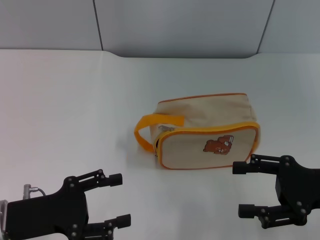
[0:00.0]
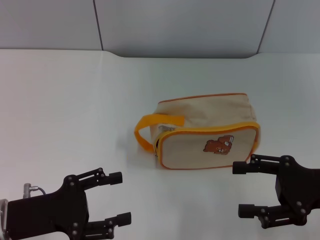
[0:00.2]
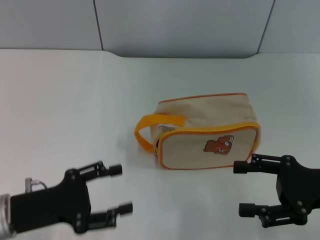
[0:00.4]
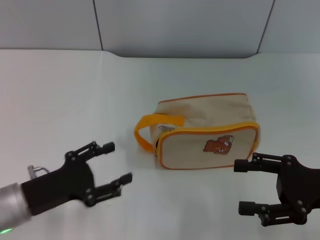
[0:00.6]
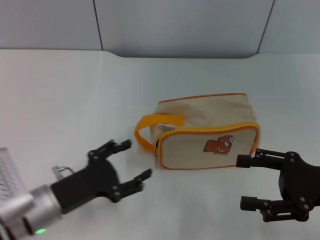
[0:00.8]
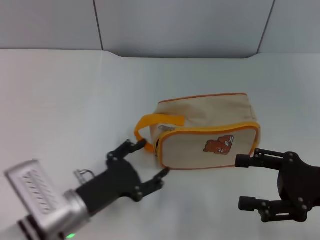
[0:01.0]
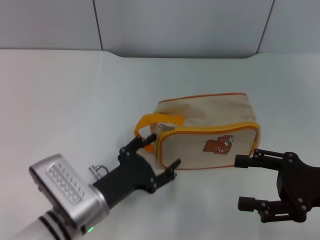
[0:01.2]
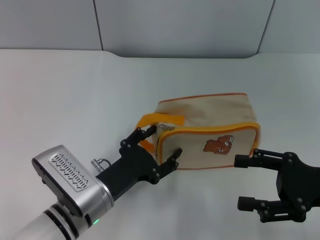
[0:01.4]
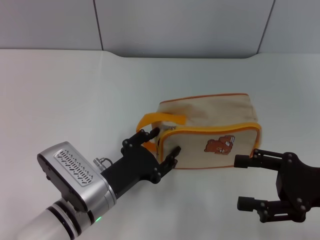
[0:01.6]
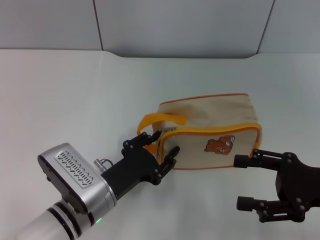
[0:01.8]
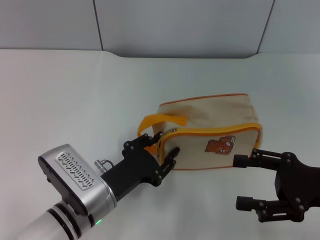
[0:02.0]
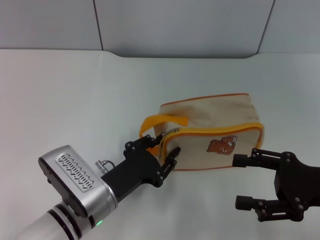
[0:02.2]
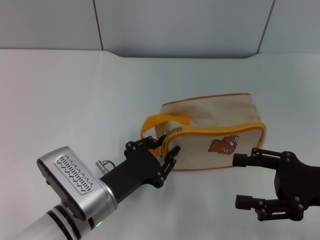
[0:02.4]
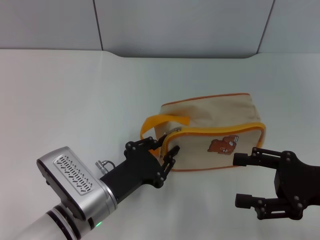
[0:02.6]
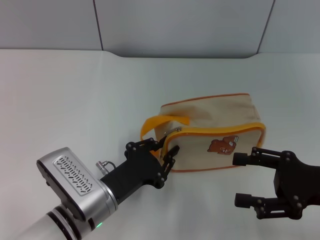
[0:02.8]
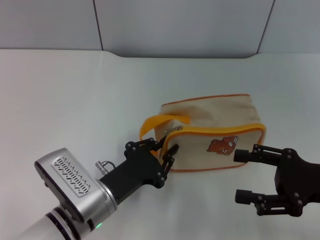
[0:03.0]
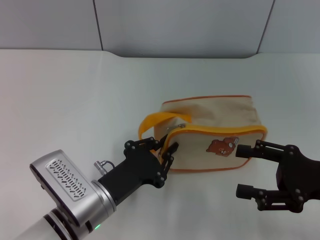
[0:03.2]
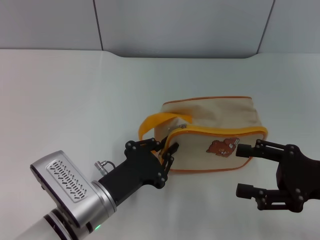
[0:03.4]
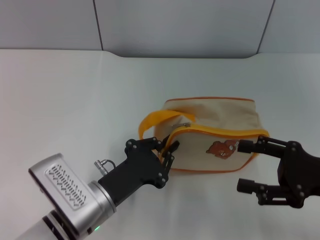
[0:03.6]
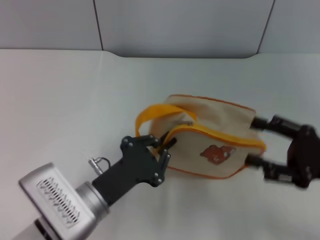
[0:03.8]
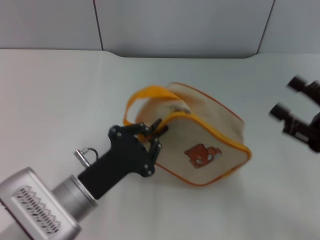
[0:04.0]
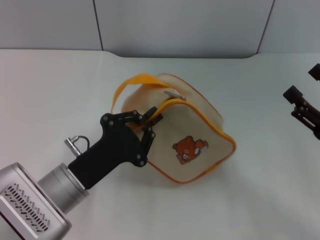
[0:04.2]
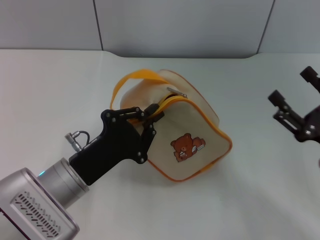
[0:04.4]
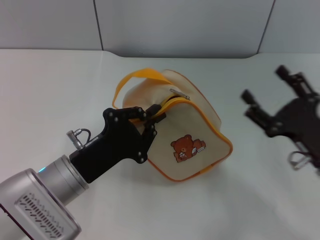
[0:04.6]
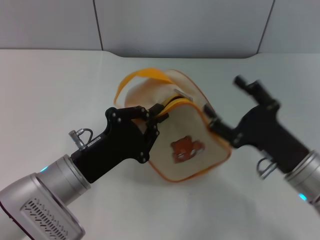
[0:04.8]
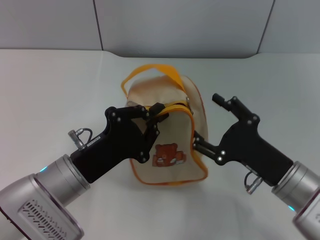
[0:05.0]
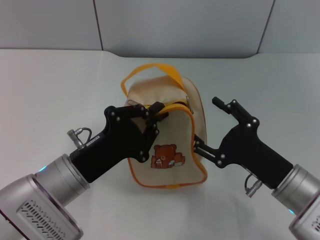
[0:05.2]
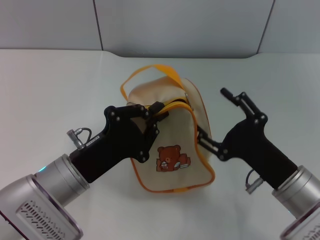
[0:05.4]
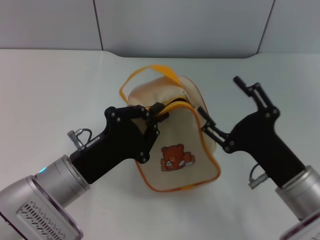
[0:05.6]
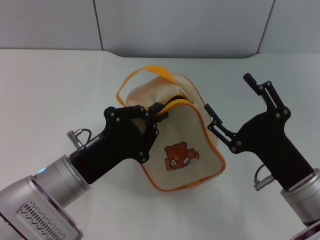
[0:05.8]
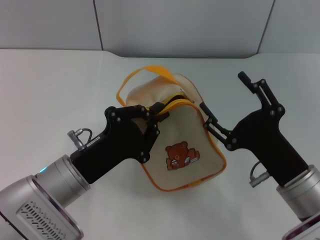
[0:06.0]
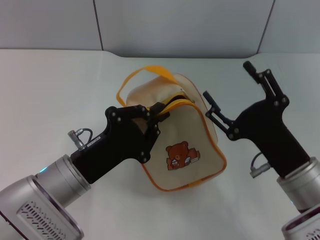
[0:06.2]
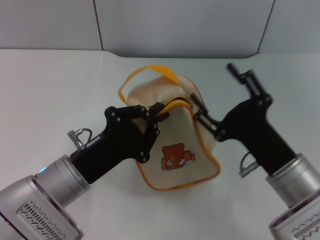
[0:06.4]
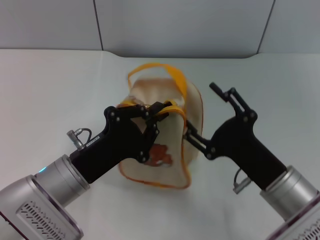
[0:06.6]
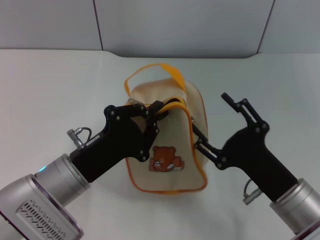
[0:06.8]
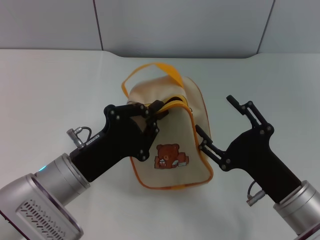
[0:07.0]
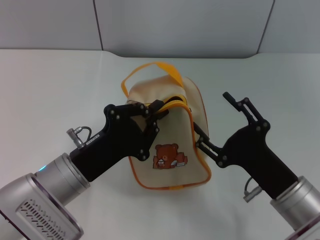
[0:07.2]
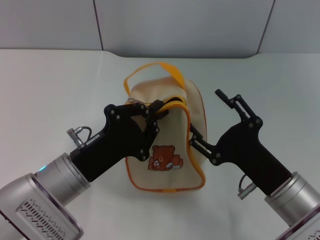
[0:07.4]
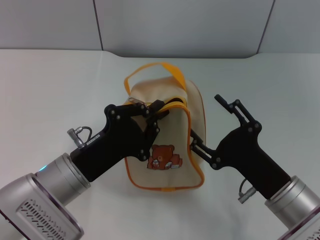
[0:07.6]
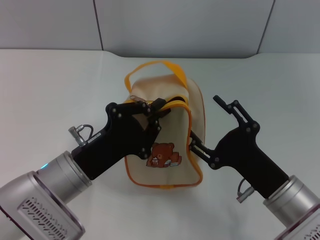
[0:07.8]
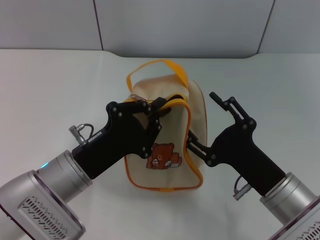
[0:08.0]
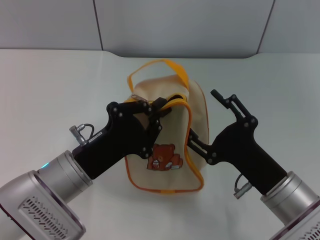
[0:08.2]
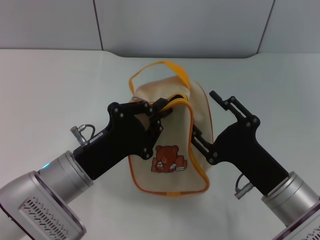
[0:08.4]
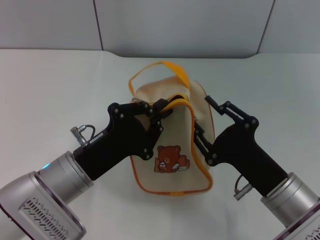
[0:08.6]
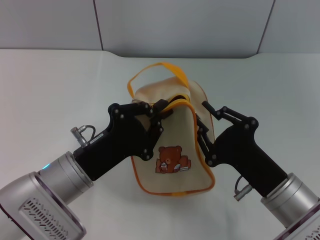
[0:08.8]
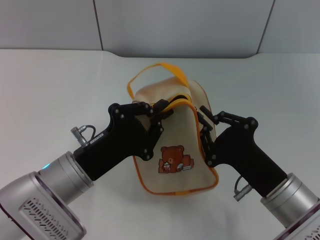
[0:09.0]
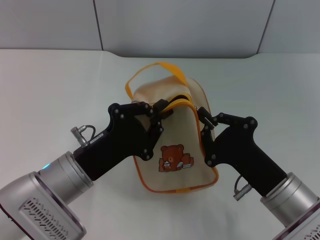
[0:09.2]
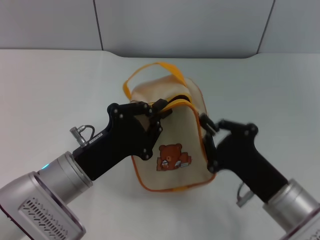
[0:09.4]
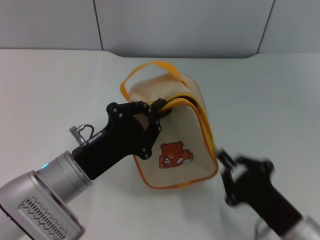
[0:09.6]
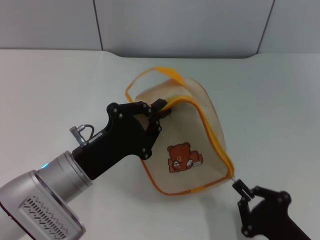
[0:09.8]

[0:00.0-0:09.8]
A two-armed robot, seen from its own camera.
Step, 0:00.0 to 0:04.6: Pick up the bag with left gripper.
0:00.0 to 0:01.4: The left gripper travels to the right by some 15 cm.
0:01.4 to 0:02.8: The left gripper closes.
0:02.8 to 0:04.2: The left gripper ends up roughly 5 cm from where it was.
0:04.2 to 0:05.6: The right gripper heads to the left, covering about 10 cm.
0:05.6 to 0:08.4: The grippers move only a little.
0:08.4 to 0:09.8: The right gripper heads backward and downward, covering roughly 10 cm, and closes up.

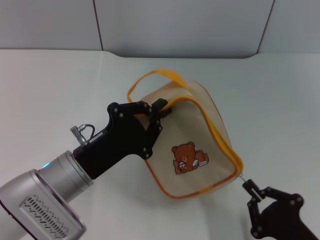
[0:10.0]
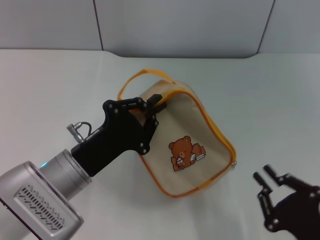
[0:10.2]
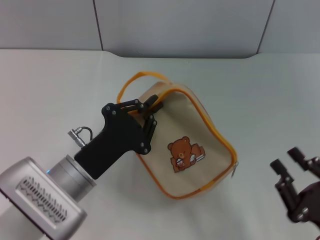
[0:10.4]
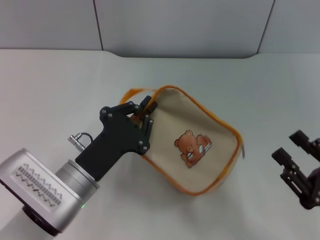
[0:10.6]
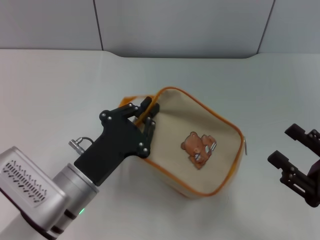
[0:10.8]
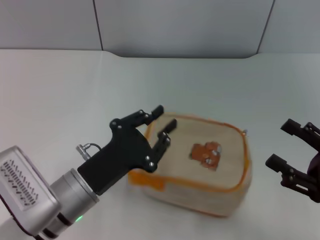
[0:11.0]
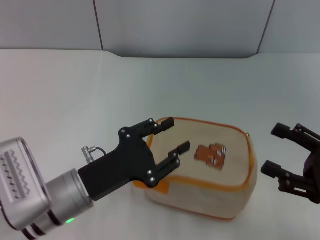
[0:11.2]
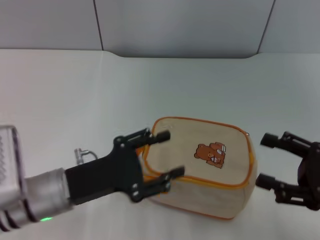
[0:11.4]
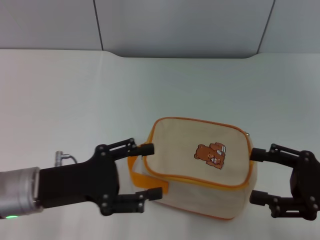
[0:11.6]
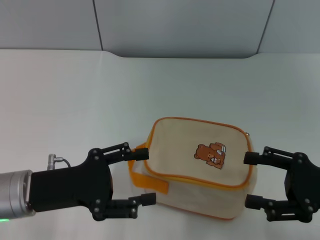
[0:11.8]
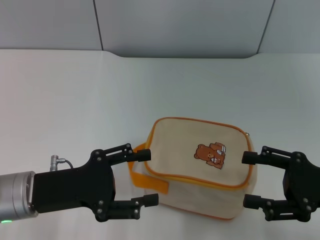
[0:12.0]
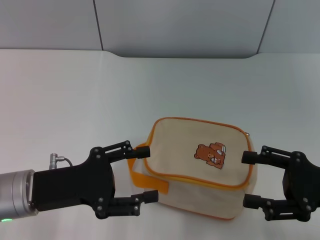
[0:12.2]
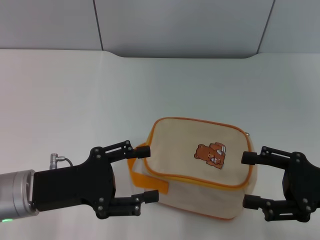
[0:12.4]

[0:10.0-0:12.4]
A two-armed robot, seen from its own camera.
Step, 0:10.6 to 0:11.2: Place the bag on the table with left gripper.
0:10.0 to 0:11.2: The right gripper shifts some 15 cm to the right, forward and upward, and opens up.
0:11.2 to 0:12.4: The left gripper goes some 5 cm to the left, and opens its fingers.
